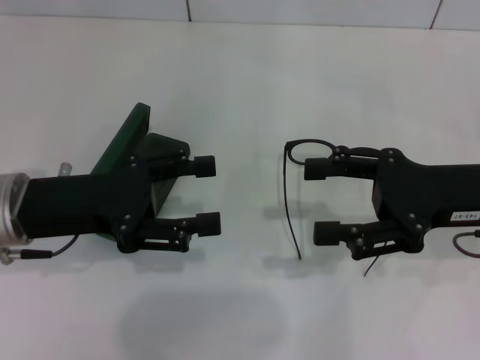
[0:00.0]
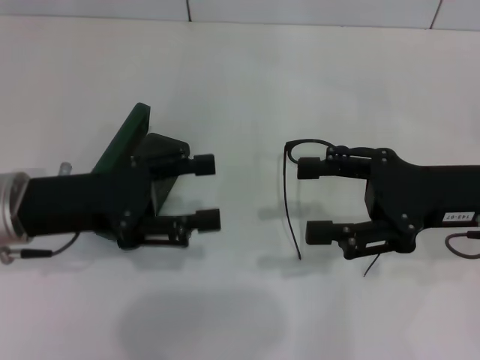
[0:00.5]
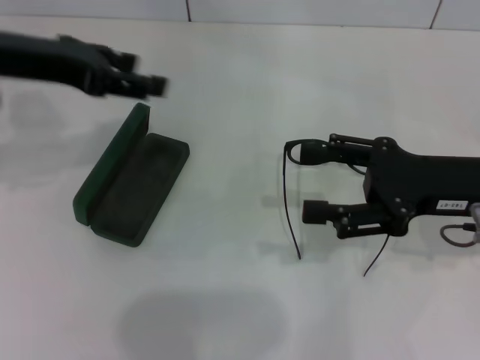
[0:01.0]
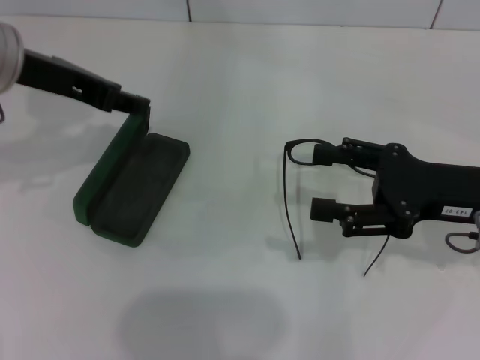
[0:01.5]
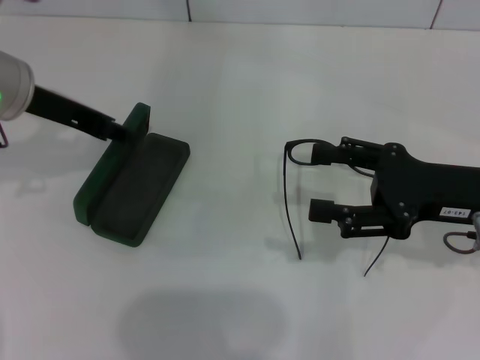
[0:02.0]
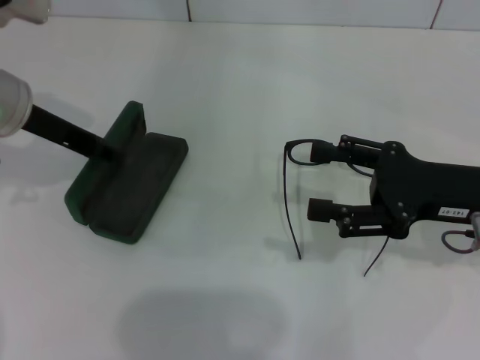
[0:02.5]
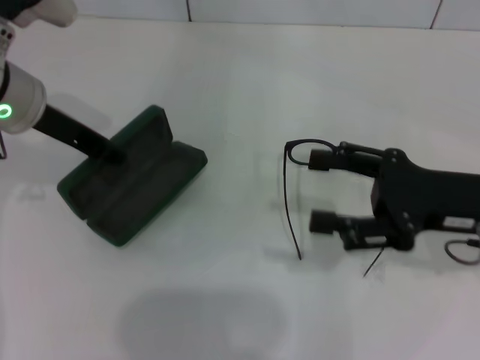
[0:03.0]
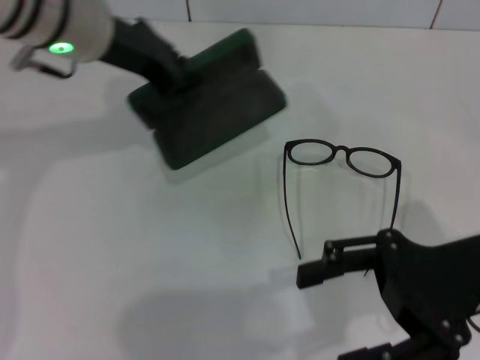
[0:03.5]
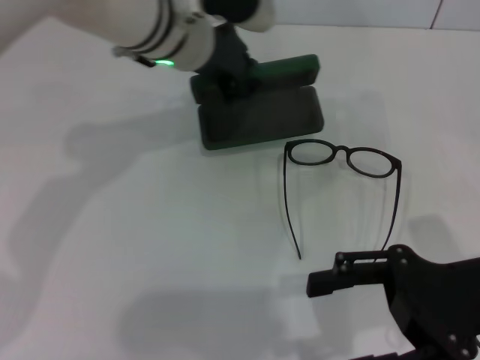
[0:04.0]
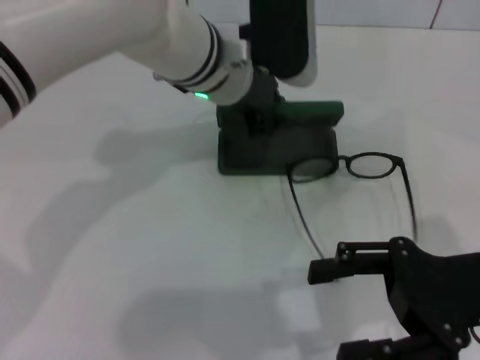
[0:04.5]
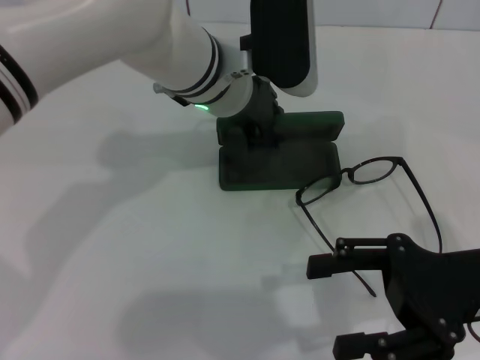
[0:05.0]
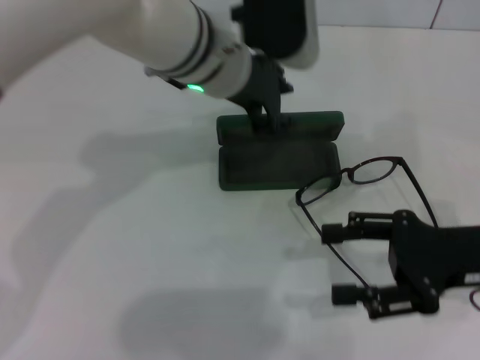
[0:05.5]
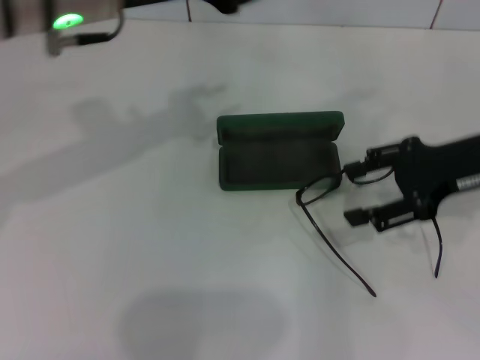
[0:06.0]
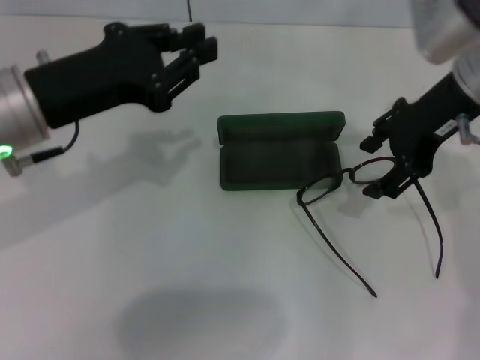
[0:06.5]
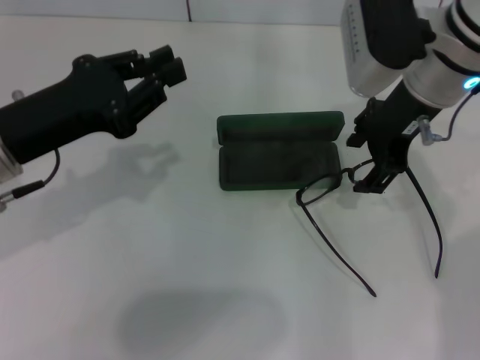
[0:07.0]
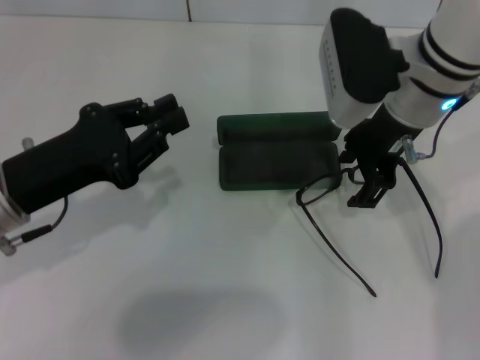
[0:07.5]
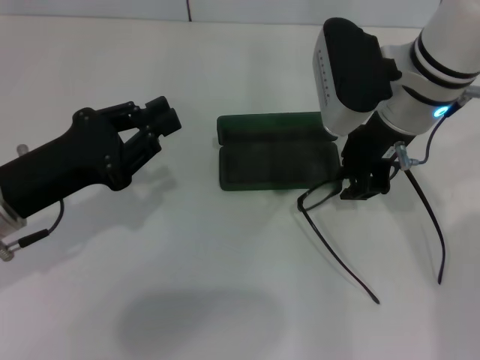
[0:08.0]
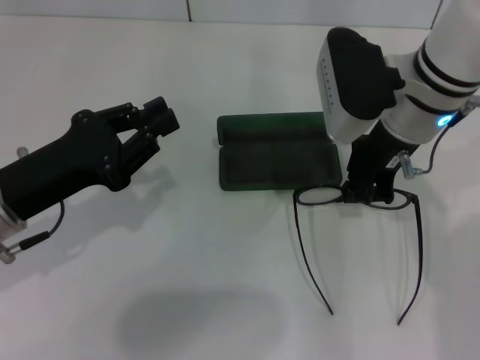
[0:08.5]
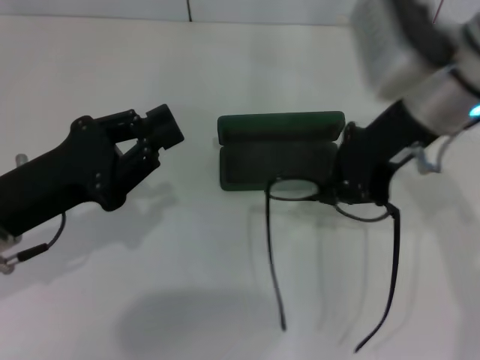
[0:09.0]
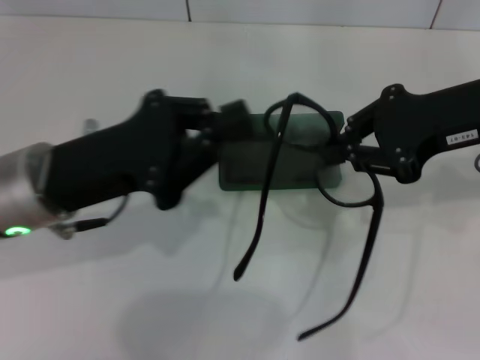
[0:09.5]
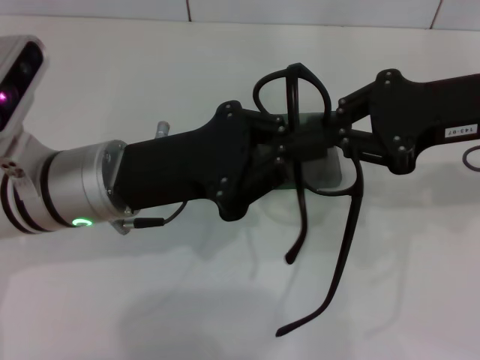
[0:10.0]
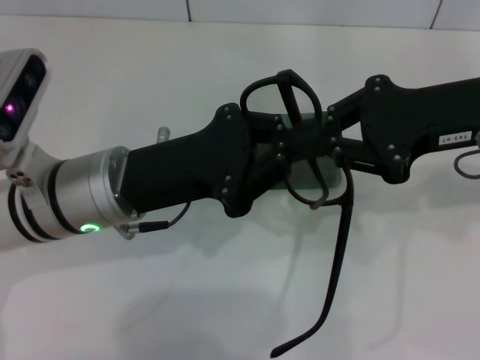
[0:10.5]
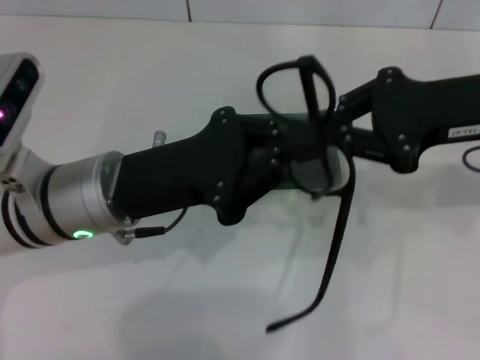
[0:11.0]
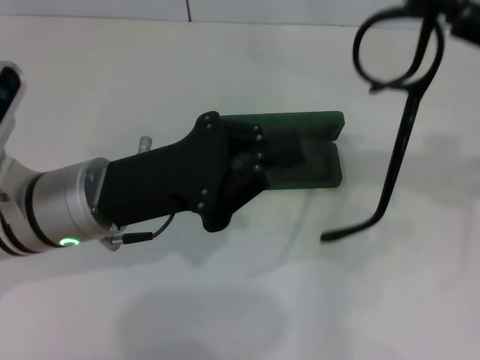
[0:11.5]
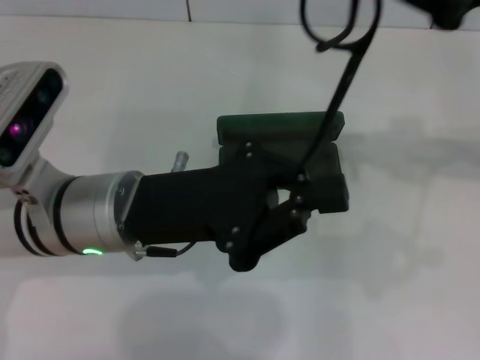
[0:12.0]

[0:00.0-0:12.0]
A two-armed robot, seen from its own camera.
Step, 0:00.0 to 0:02.5: Grab the glasses case with your left hand.
Step, 0:03.0 to 0:05.0: Place the glasses case in the center of the table with your left hand.
Step, 0:05.5 to 0:08.5: Grab the eyeglass frame with your right hand.
0:00.0 to 0:02.0: The left gripper shifts about 10 cm forward and upward.
0:02.0 to 0:04.0: The left gripper is displaced to the right by approximately 15 cm, and closes its fingers, while the right gripper moves backward, approximately 5 cm.
0:04.0 to 0:06.0: The right gripper shifts approximately 10 cm forward. The left gripper heads backward, upward and to the left, covering roughly 15 cm.
0:06.0 to 0:08.0: The left gripper goes approximately 20 cm downward, to the left and backward. Meanwhile the right gripper goes some 15 cm to the left.
0:08.0 to 0:10.0: The right gripper is displaced to the right and backward by approximately 10 cm, and closes, while the left gripper is displaced to the right by roughly 10 cm.
0:10.0 to 0:12.0: The right gripper heads upward, covering about 5 cm.

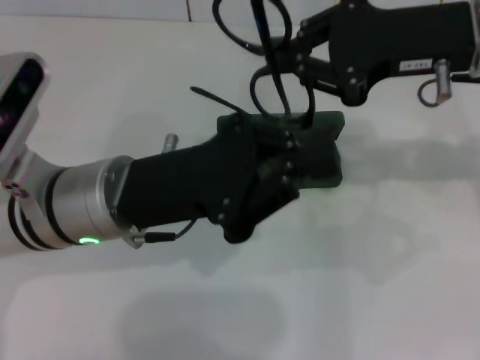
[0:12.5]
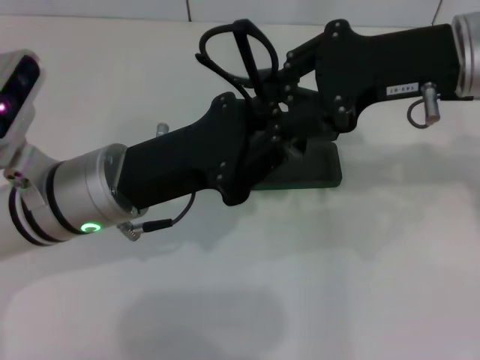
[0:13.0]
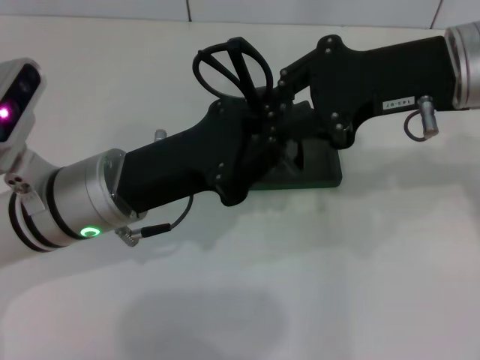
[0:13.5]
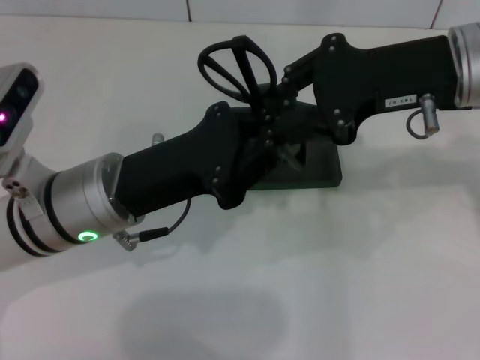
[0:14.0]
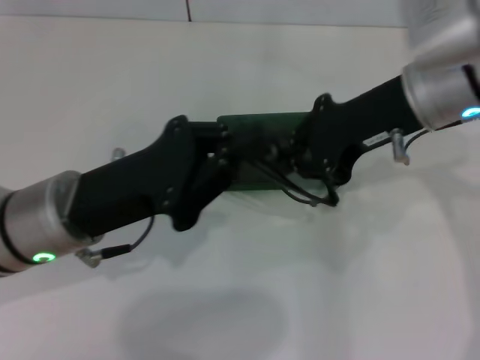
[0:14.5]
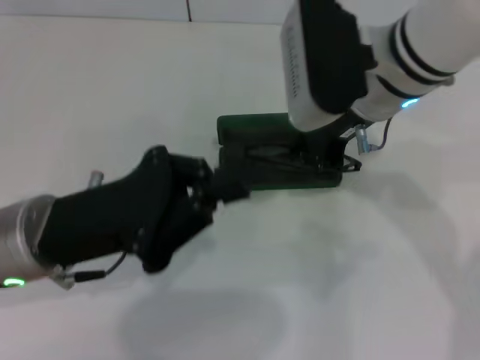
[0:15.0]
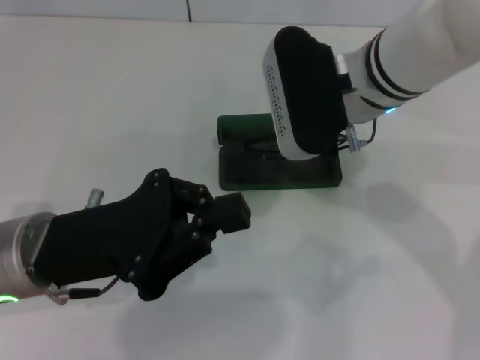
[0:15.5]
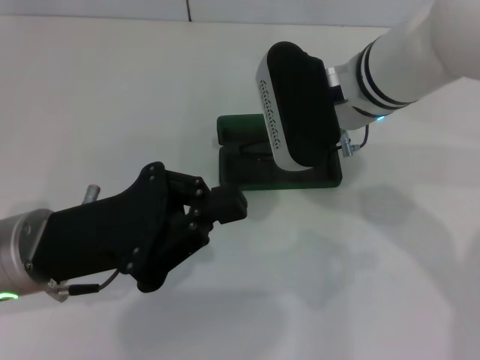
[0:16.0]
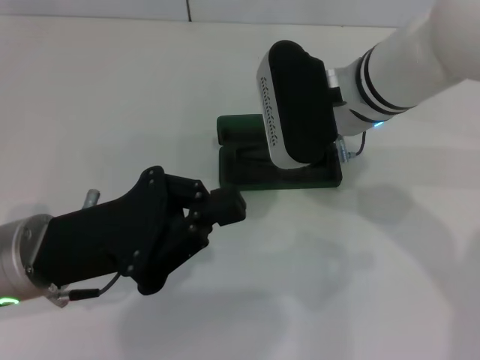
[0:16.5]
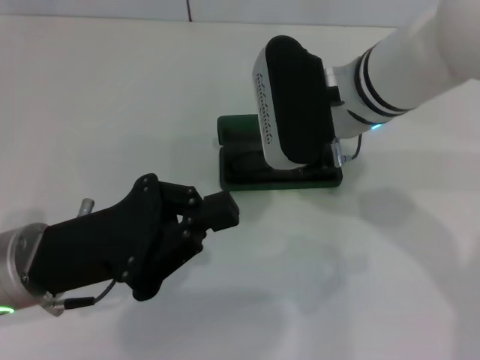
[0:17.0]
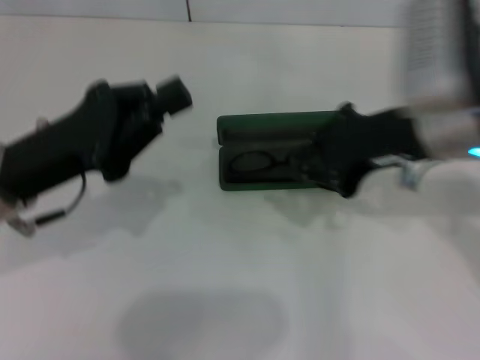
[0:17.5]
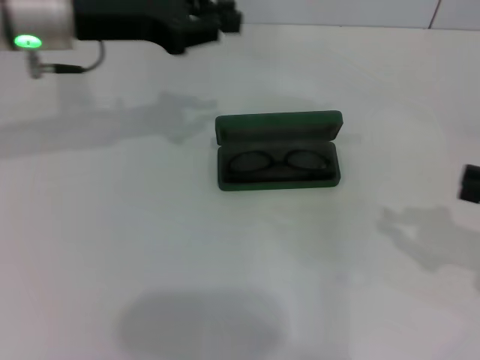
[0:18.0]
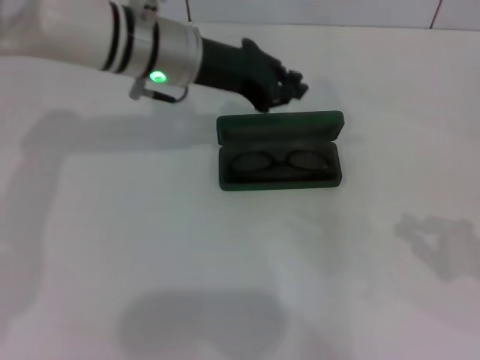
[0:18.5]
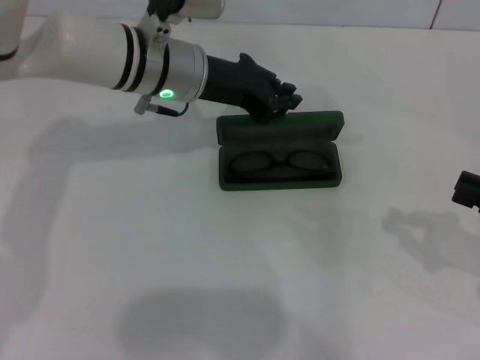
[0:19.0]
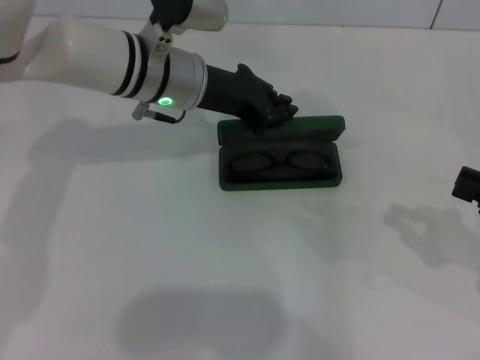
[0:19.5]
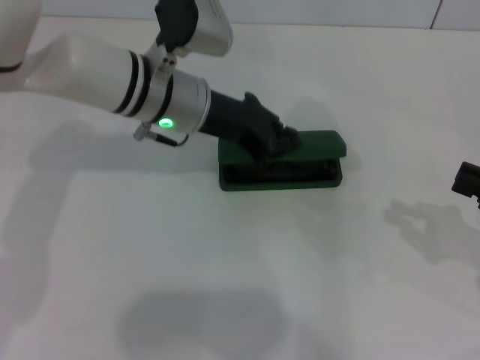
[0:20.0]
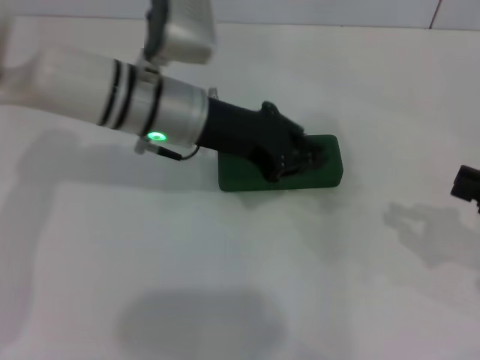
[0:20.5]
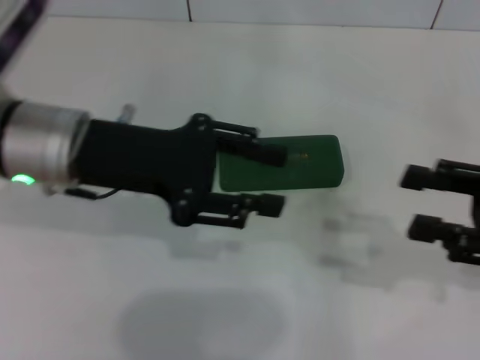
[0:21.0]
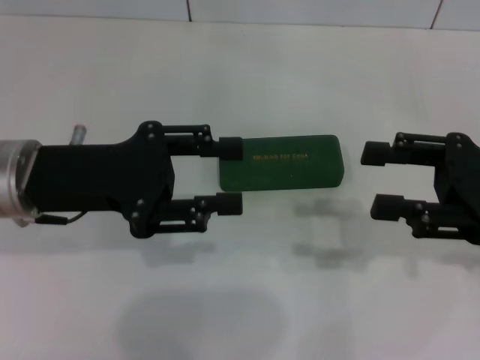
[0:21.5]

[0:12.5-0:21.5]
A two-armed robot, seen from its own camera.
Step, 0:13.5 to 0:17.0: Put the glasses into the case with your right hand.
Step, 0:17.5 to 0:20.0: Close the glasses case with your left hand.
0:12.5 to 0:14.5: The right gripper moves some 5 cm.
0:14.5 to 0:17.0: The right gripper shifts some 10 cm to the left.
0:17.0 to 0:19.5: The left gripper travels forward and to the right by roughly 20 cm. The right gripper is displaced to the right and backward by some 30 cm.
0:19.5 to 0:21.5: The left gripper heads backward and to the left, covering some 15 cm, and opens; the right gripper shifts approximately 10 cm to the left and upward, and opens.

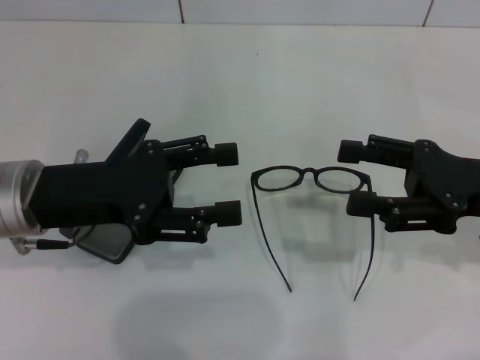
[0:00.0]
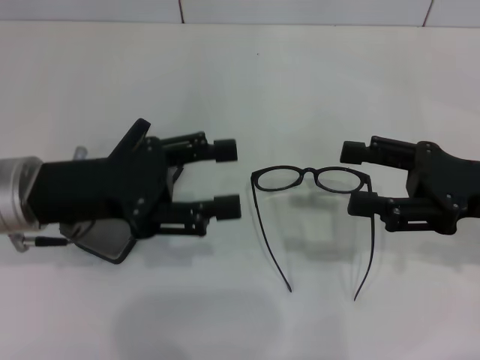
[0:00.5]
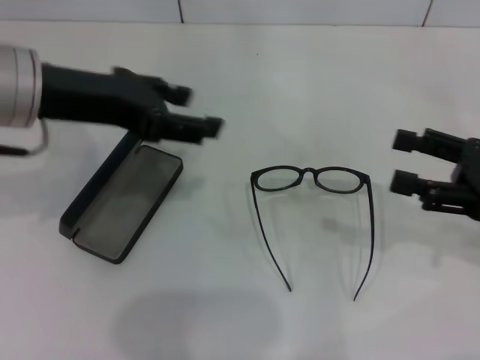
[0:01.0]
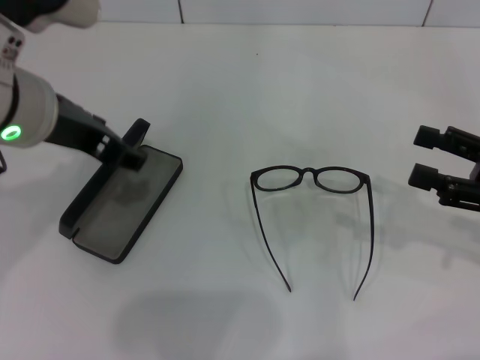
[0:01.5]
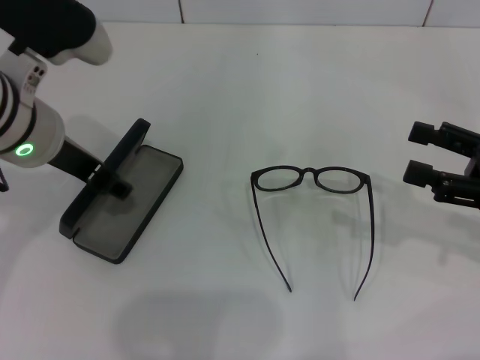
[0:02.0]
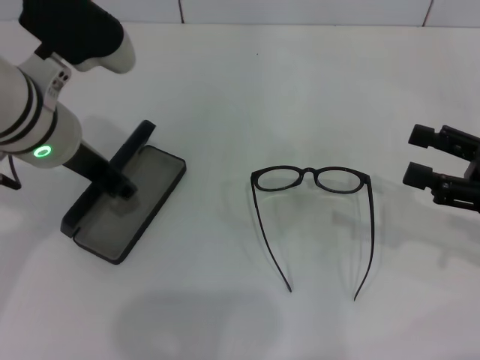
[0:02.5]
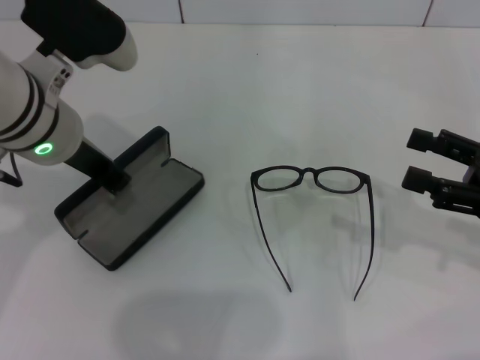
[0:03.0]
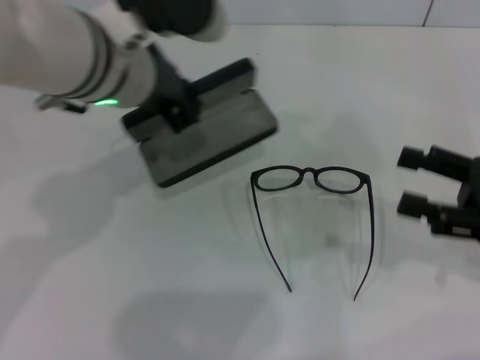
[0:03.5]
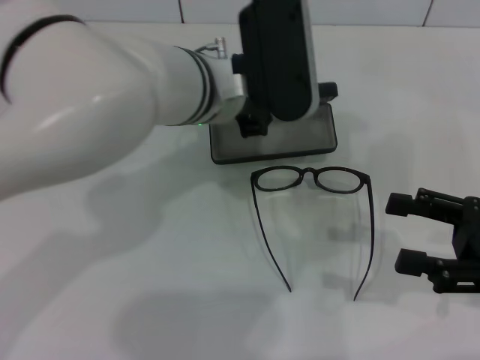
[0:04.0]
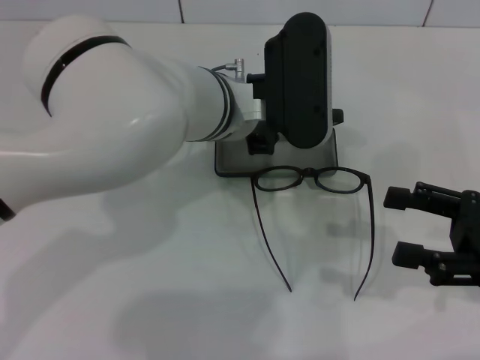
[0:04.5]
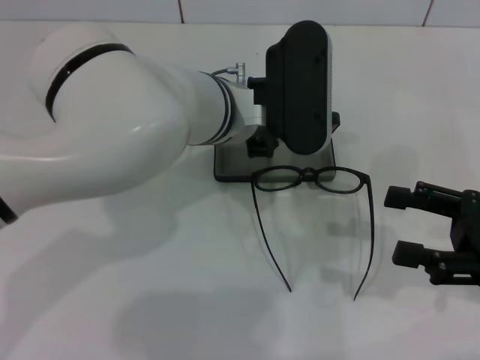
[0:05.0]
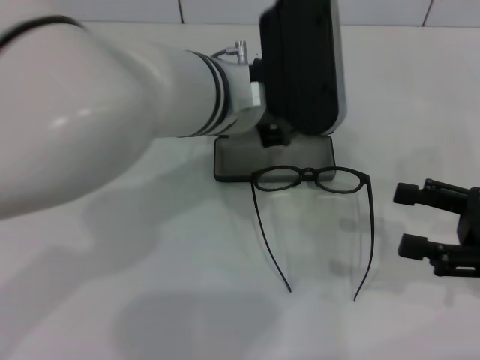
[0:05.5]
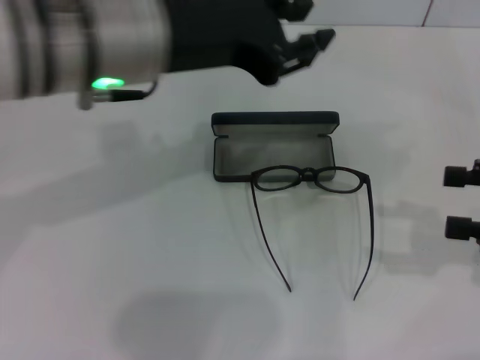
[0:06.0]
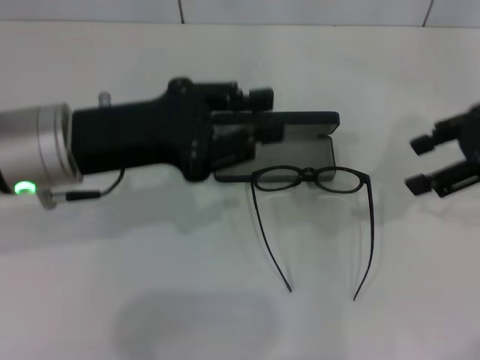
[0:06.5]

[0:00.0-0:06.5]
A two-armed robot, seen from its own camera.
Step, 0:00.0 to 0:02.0: Grab the glasses case with your left hand.
Step, 0:02.5 to 0:05.0: Place the glasses case in the center of the table with your left hand.
0:00.0 to 0:02.0: The left gripper heads upward, covering about 5 cm. The right gripper shifts roughly 5 cm to the right.
0:02.0 to 0:04.5: The left gripper is displaced to the right by some 15 cm, and closes.
0:04.5 to 0:06.5: The right gripper goes some 15 cm upward and forward, while the left gripper moves to the left, roughly 15 cm.
